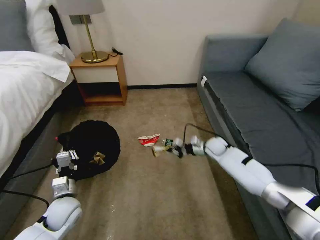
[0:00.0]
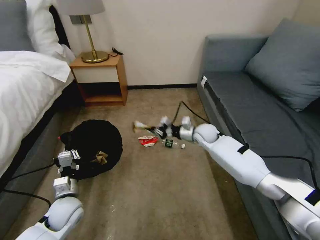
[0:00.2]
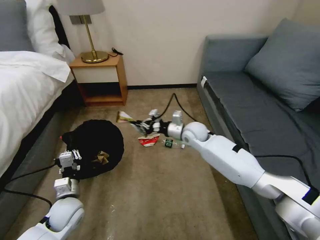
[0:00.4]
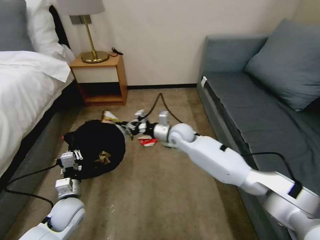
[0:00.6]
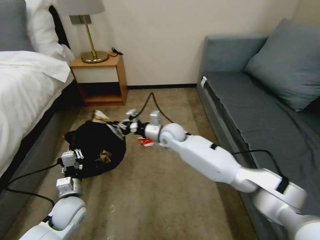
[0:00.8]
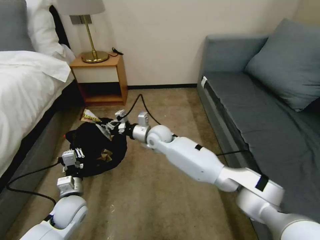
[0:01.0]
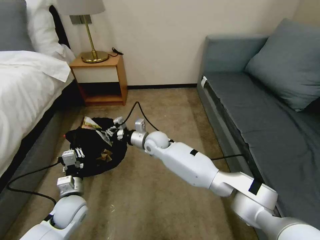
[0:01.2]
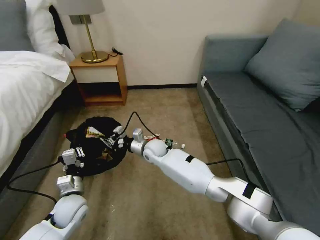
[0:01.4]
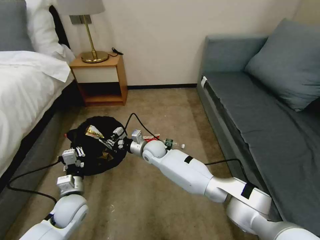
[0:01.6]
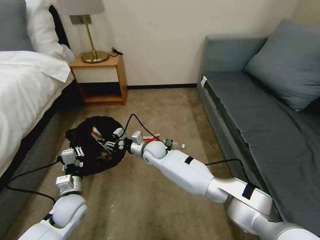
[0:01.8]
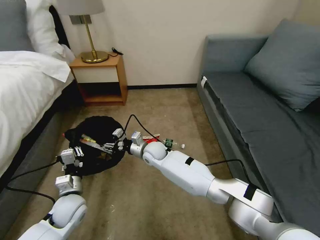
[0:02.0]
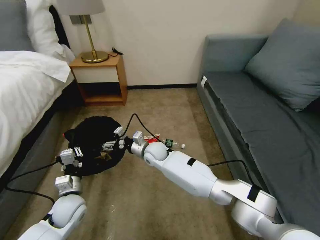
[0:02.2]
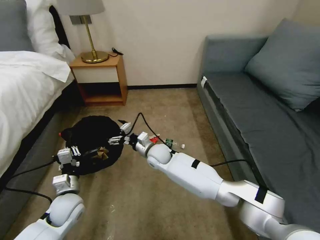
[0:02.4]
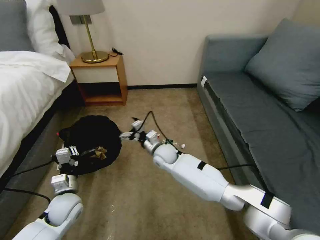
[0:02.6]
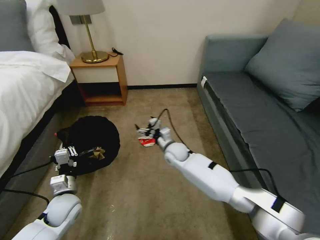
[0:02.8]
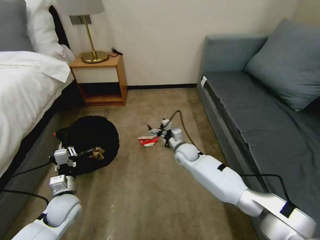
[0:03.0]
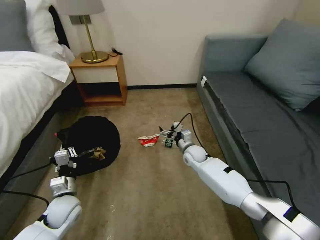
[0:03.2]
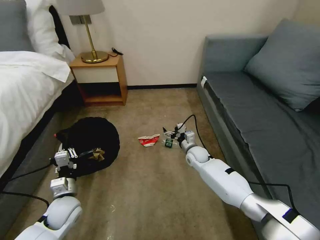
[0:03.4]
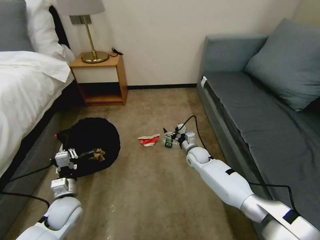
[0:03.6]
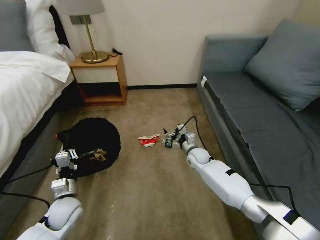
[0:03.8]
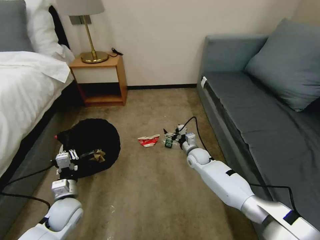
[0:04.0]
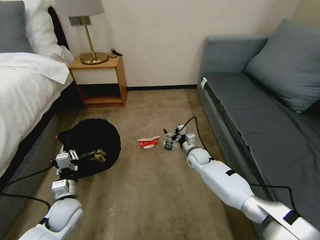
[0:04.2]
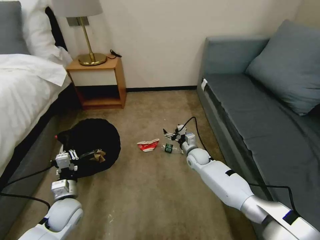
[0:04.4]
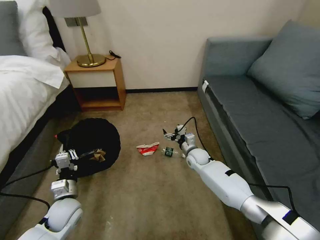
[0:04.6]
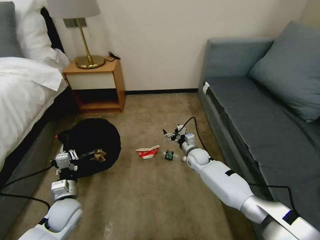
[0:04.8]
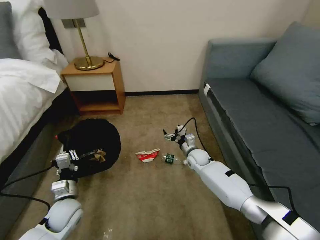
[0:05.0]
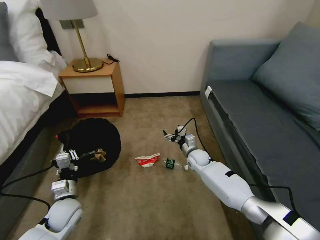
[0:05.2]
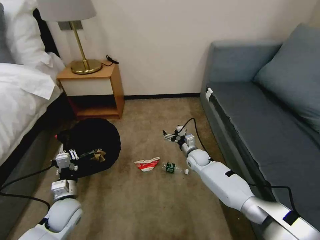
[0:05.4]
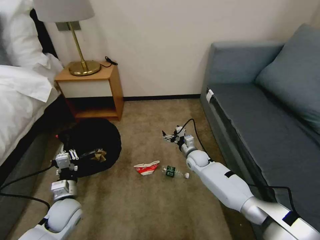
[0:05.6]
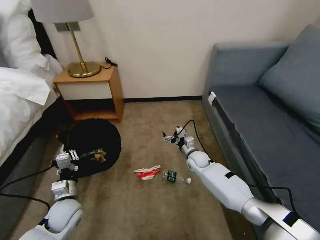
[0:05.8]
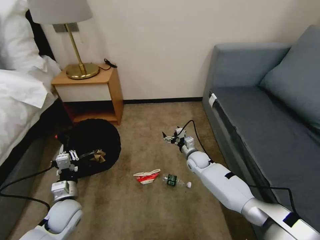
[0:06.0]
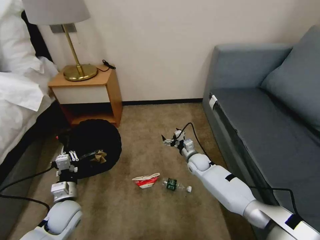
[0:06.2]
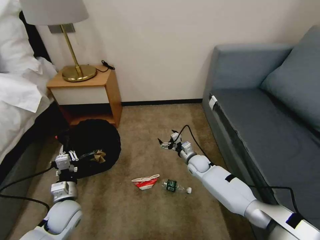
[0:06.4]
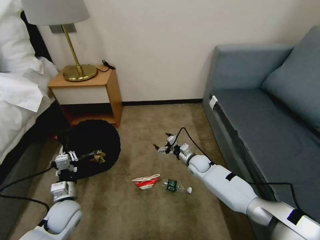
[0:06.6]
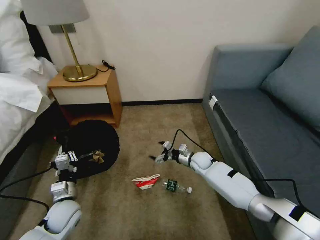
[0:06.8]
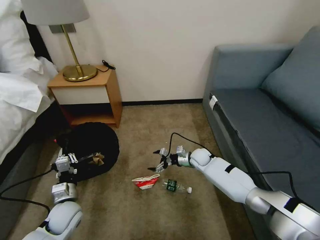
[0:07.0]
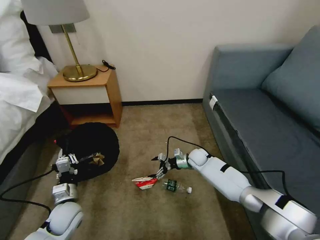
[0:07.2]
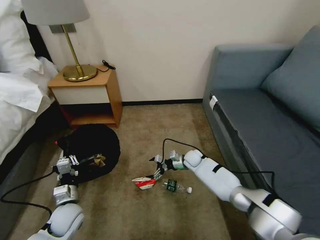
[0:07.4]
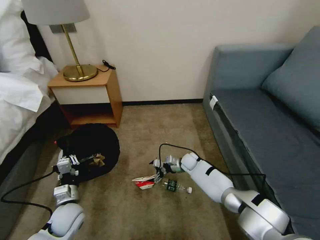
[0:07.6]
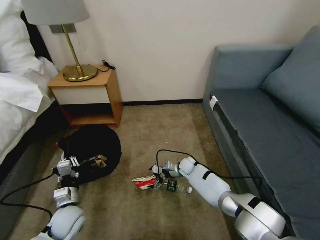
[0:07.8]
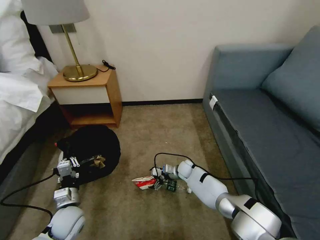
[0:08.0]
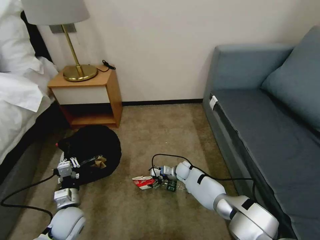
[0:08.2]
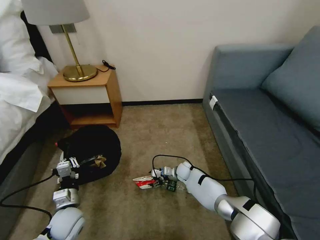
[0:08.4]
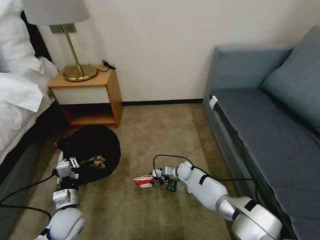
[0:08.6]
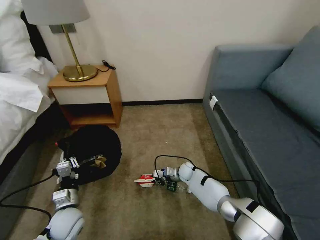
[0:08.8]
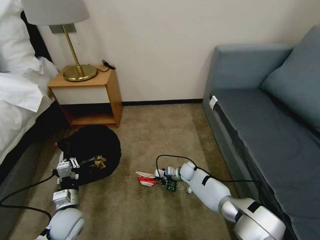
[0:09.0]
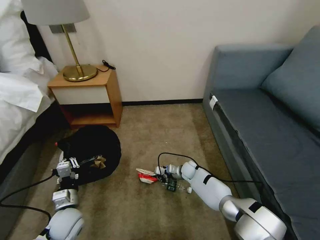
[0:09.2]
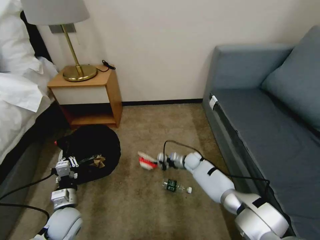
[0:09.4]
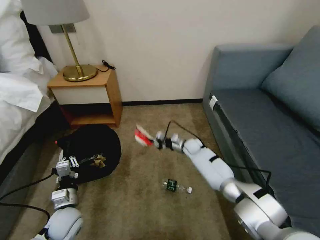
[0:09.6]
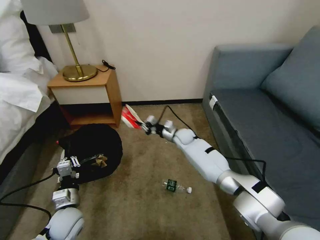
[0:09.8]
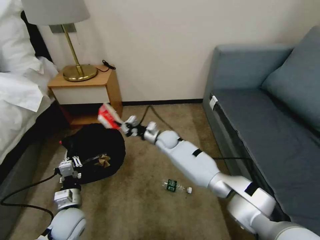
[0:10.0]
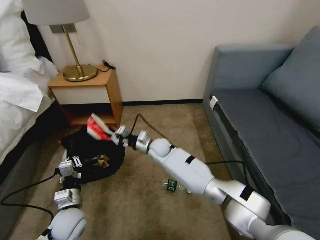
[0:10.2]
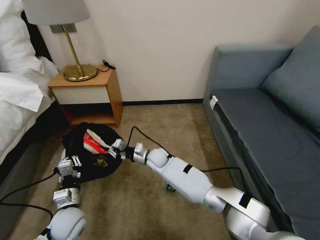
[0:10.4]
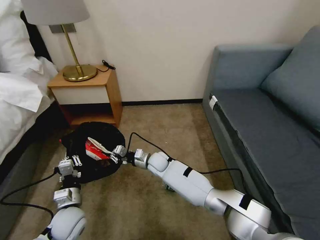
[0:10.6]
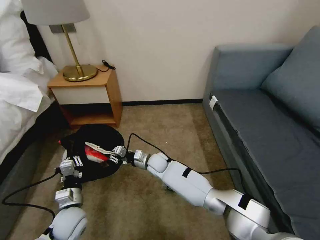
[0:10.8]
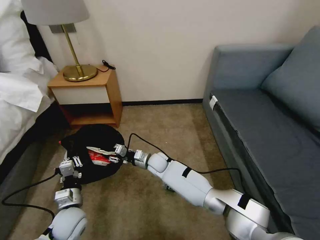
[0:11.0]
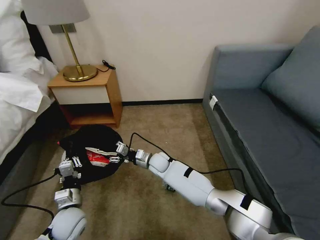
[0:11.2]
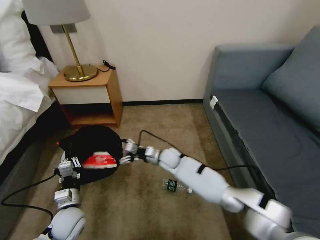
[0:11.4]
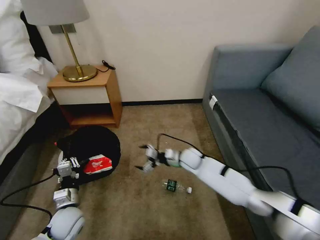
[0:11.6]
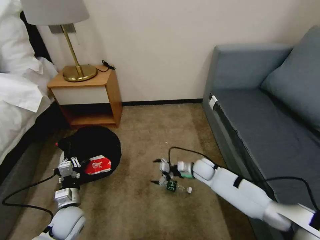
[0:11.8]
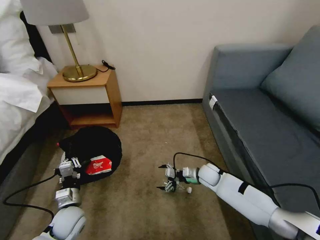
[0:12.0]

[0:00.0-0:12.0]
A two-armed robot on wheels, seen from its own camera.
Task of the whole recording: Pick up the trash bin, then pick up the garbage on the floor and place it into the trash bin.
0:00.0 to 0:01.6: The right gripper moves to the left, about 30 cm.
0:01.6 to 0:03.0: The right gripper travels to the right by some 15 cm, and opens its fingers.
0:03.0 to 0:04.4: The right gripper moves approximately 5 cm.
0:06.0 to 0:07.6: The right gripper heads downward, covering some 5 cm.
0:07.6 to 0:09.0: The right gripper closes.
0:09.0 to 0:10.4: The right gripper is displaced to the left and upward by roughly 20 cm.
0:10.4 to 0:12.0: The right gripper travels to the right by about 25 cm, and opens.

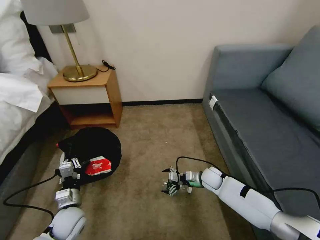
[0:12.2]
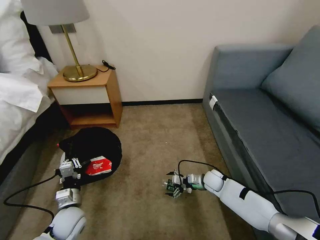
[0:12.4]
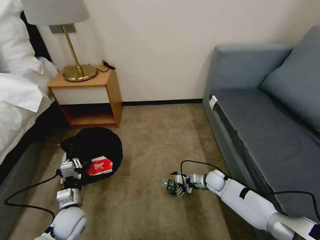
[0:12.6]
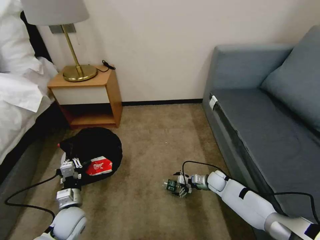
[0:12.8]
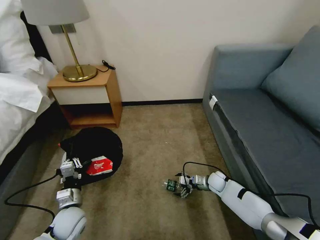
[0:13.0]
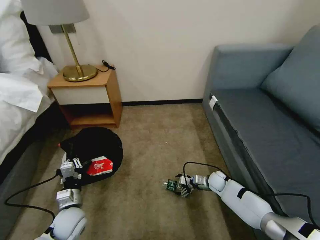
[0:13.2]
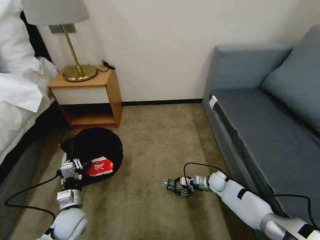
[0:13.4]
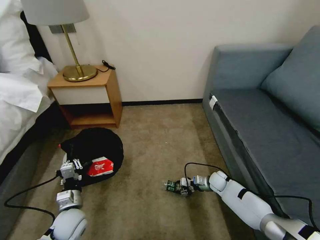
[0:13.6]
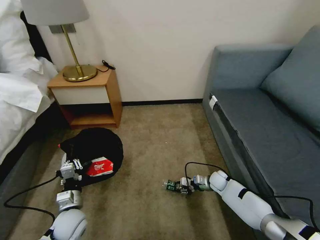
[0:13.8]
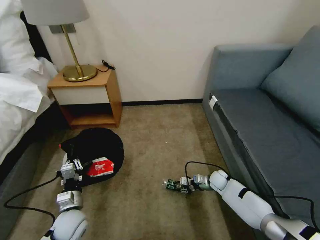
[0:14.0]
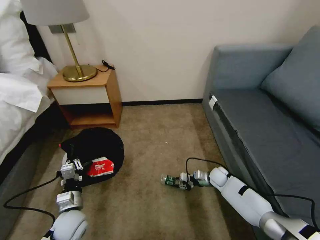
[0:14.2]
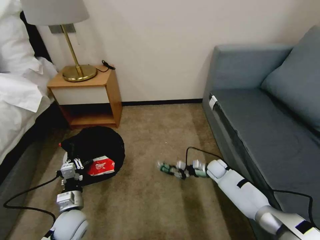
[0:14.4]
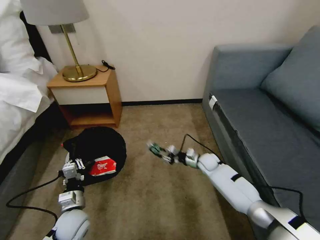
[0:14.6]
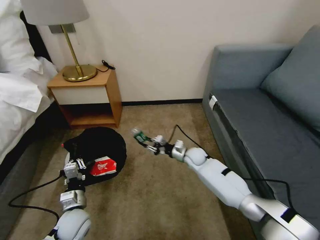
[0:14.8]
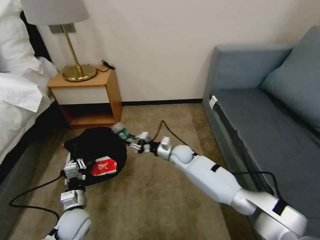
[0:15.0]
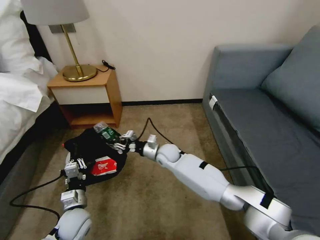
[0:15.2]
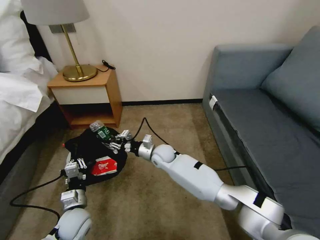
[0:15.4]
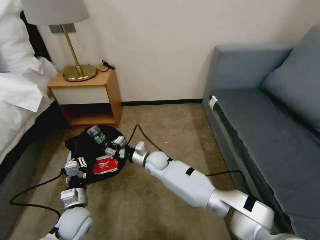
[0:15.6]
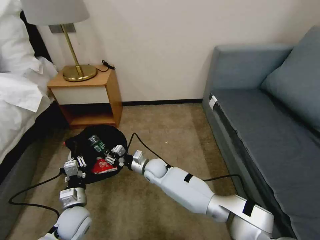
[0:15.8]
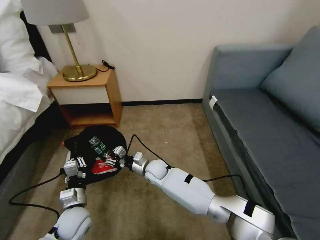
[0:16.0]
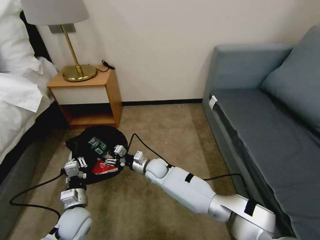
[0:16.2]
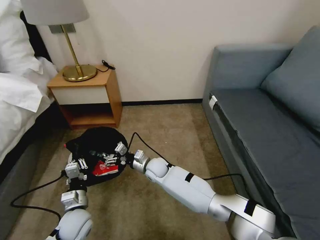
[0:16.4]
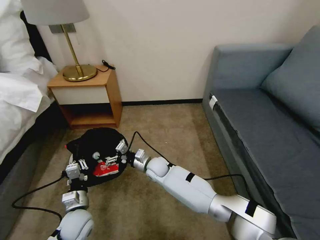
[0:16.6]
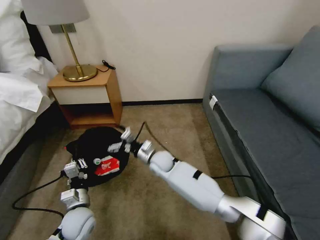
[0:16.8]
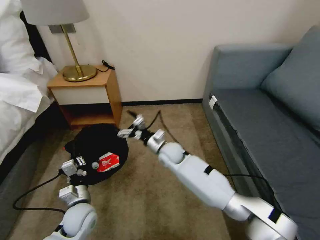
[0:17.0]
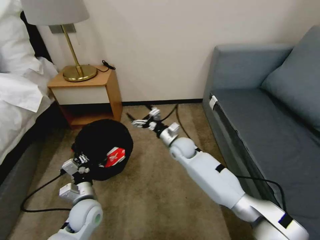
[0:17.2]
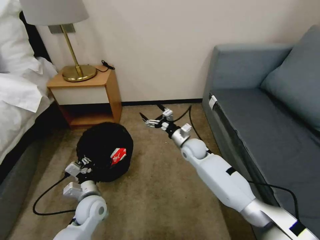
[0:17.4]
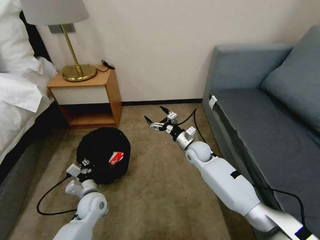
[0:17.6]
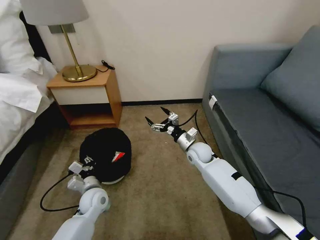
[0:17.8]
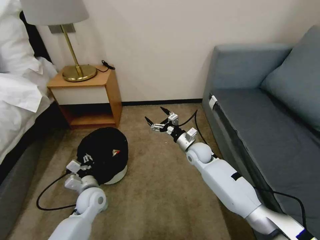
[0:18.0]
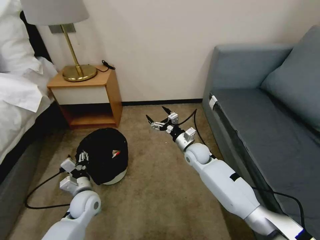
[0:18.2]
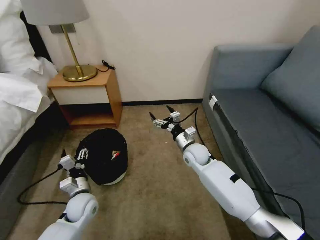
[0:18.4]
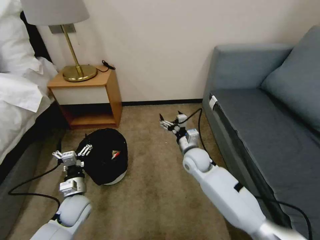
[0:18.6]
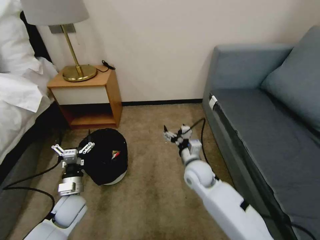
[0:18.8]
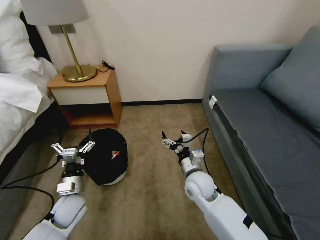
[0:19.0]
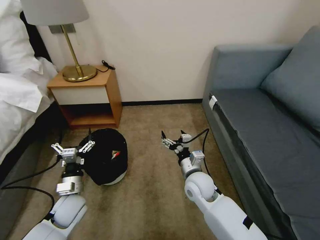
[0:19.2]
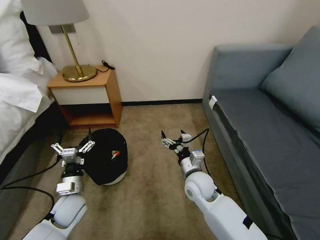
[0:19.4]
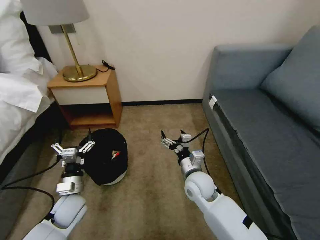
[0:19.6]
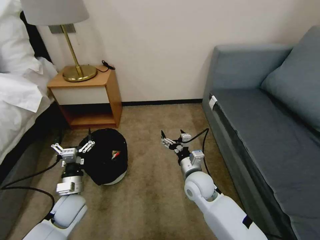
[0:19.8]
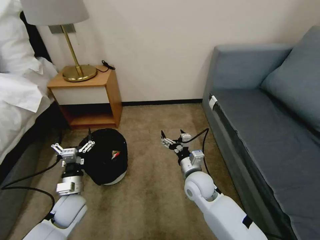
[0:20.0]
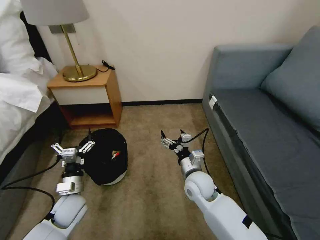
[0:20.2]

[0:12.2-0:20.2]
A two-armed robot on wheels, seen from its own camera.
Task of the whole recording: Pick up the trash bin, then pick up the garbage on the floor and place it into the trash bin.
0:12.2 to 0:13.8: The right gripper is displaced downward and to the right by about 5 cm, and closes.
0:13.8 to 0:15.4: The right gripper goes approximately 30 cm to the left and upward.
0:15.4 to 0:17.0: The right gripper opens up.
0:17.0 to 0:18.6: The left gripper opens, while the right gripper moves to the right, roughly 10 cm.
0:18.6 to 0:20.2: The right gripper travels backward by roughly 10 cm.

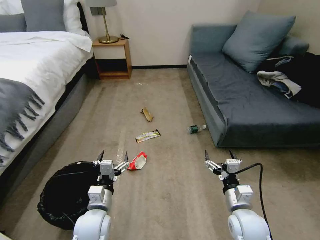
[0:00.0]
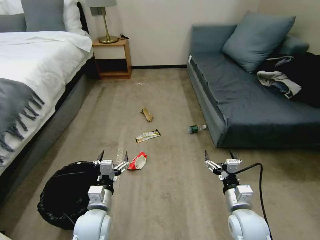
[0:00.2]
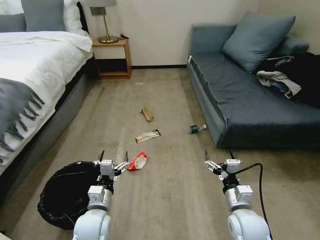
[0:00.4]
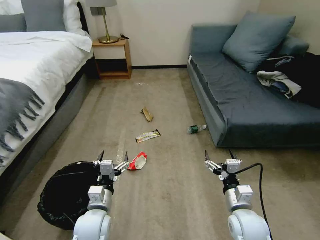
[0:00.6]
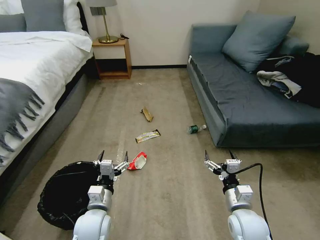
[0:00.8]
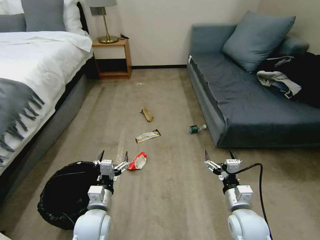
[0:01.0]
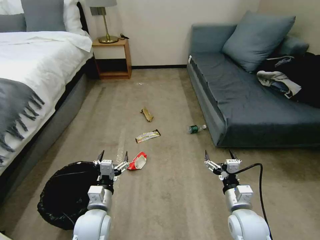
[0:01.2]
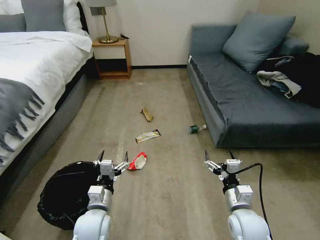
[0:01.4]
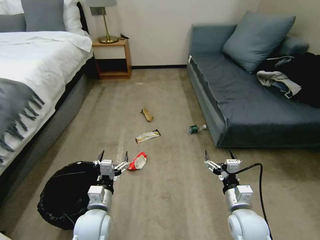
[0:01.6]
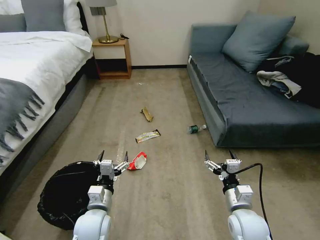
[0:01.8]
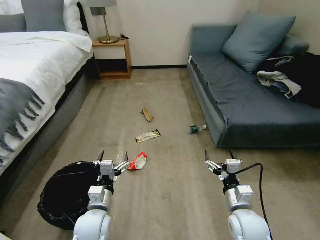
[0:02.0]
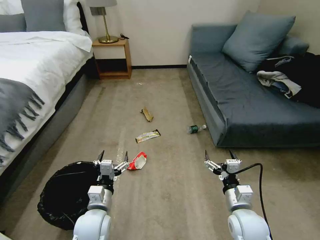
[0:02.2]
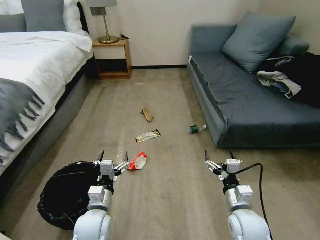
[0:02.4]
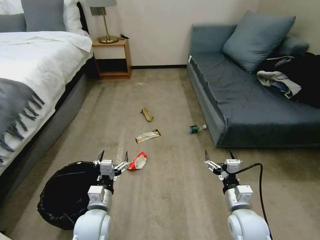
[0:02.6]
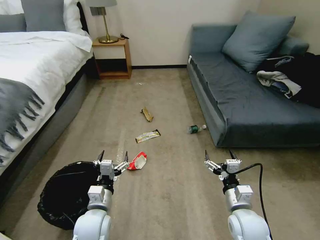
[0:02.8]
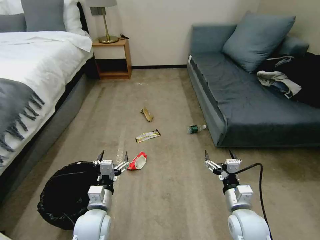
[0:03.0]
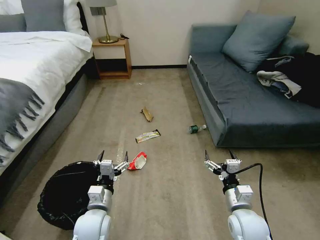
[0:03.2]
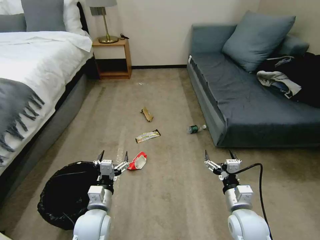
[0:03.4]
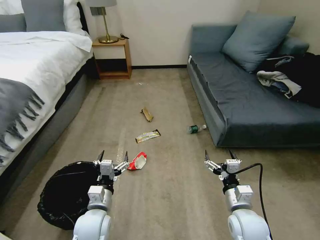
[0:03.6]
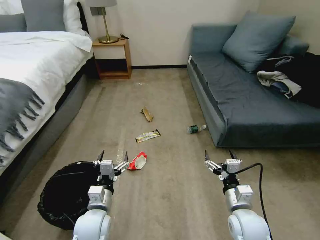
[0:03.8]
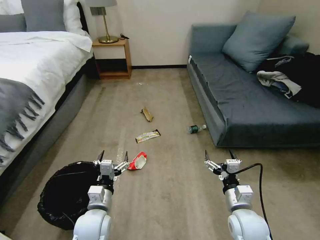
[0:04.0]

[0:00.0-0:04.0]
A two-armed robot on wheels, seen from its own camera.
Task of the whole recording: Pick up the trash bin, then pick up the garbage on the floor and place it into the trash bin.
0:01.4 to 0:04.0: Neither gripper changes place.
